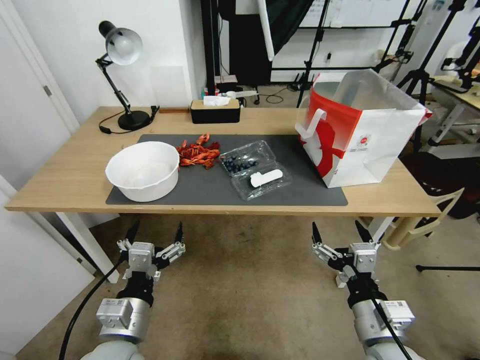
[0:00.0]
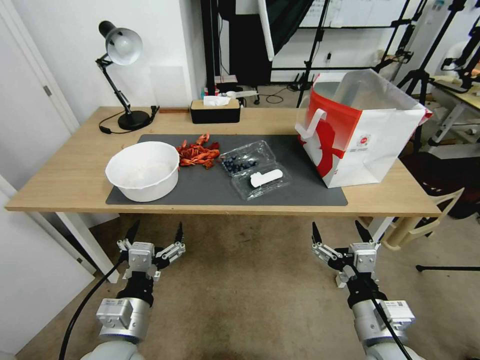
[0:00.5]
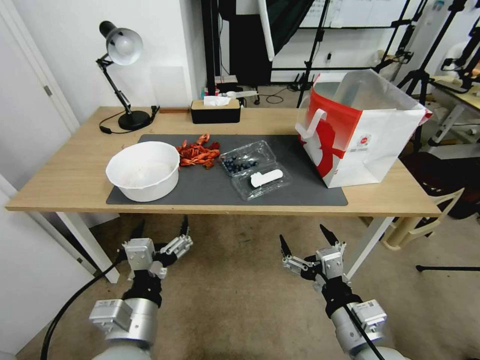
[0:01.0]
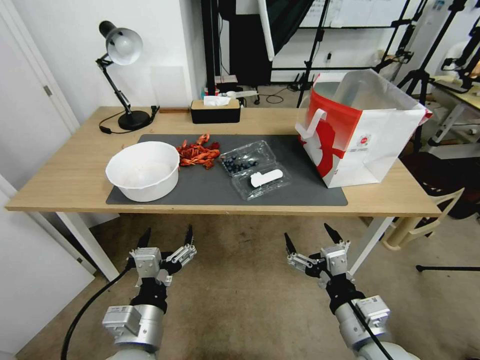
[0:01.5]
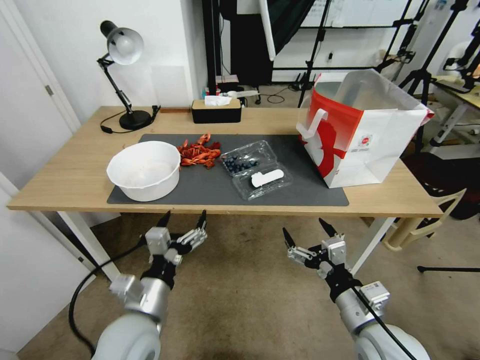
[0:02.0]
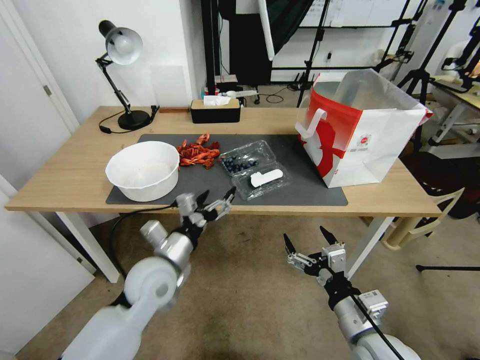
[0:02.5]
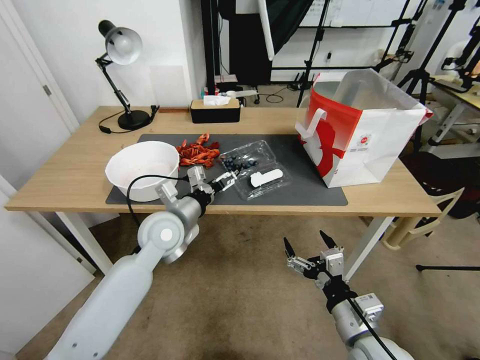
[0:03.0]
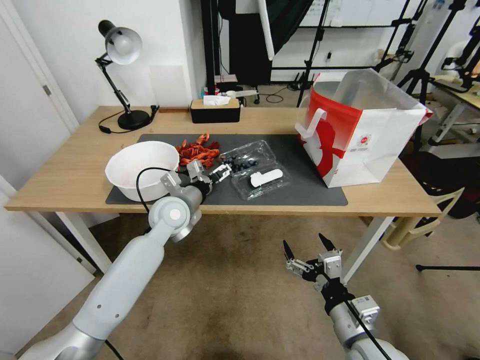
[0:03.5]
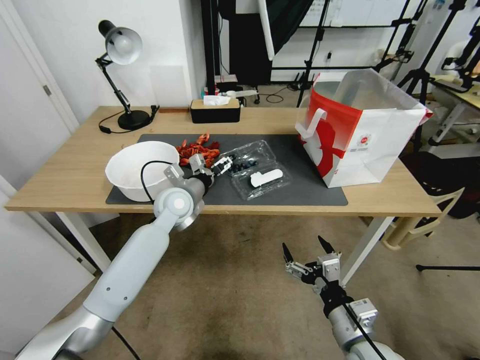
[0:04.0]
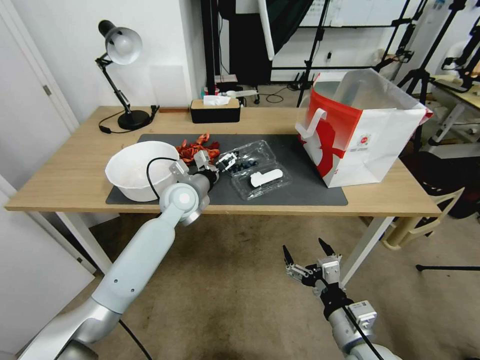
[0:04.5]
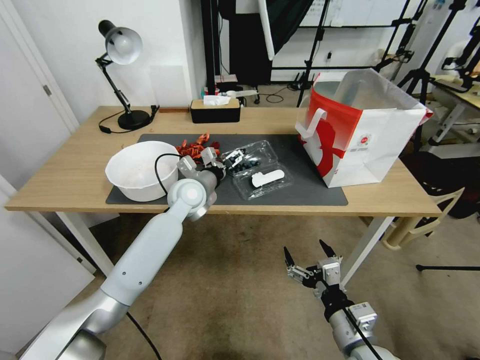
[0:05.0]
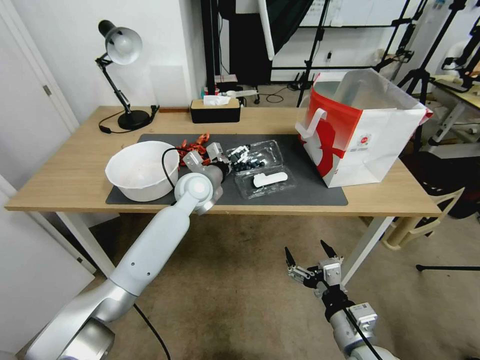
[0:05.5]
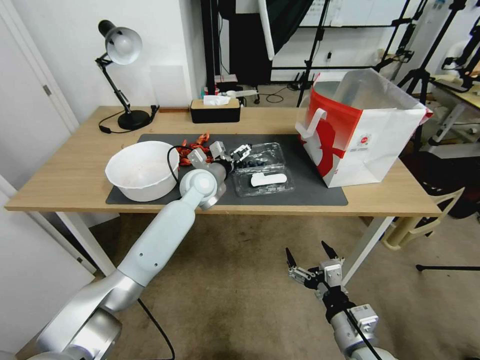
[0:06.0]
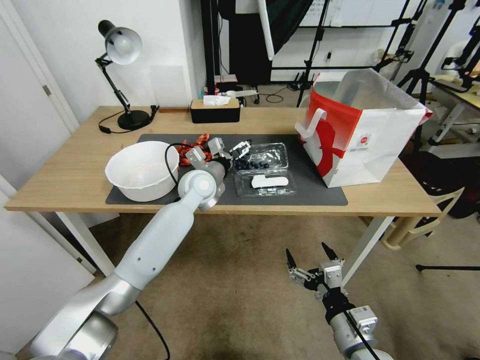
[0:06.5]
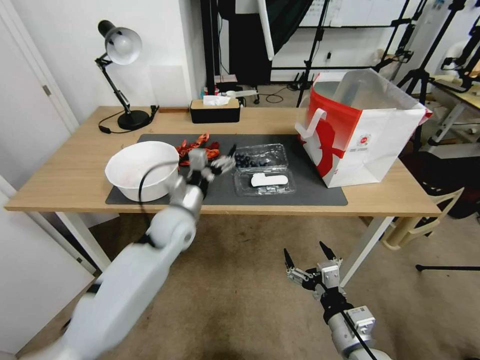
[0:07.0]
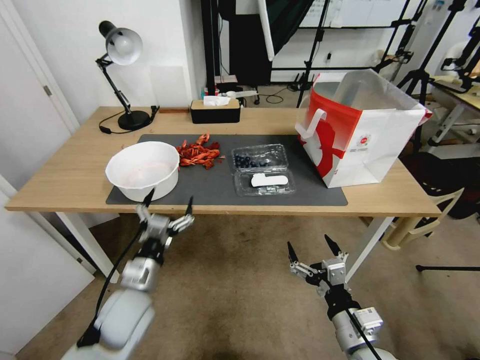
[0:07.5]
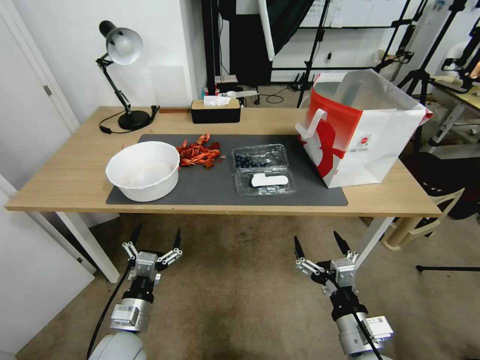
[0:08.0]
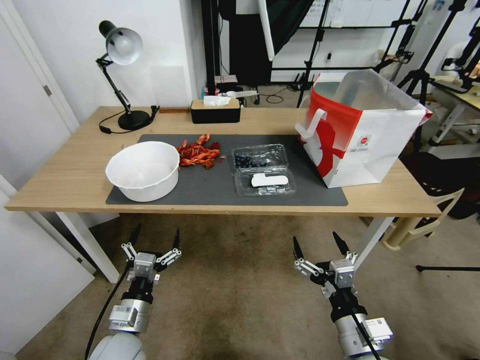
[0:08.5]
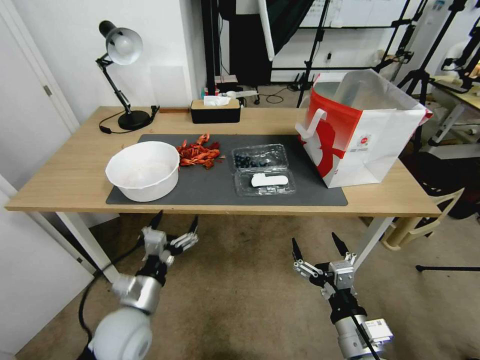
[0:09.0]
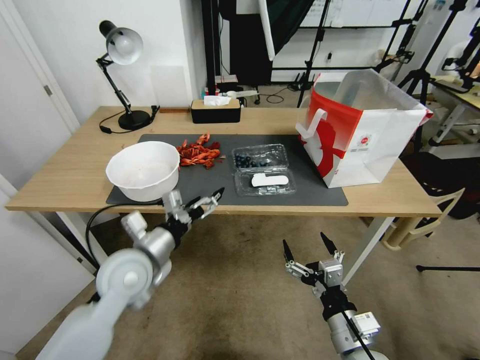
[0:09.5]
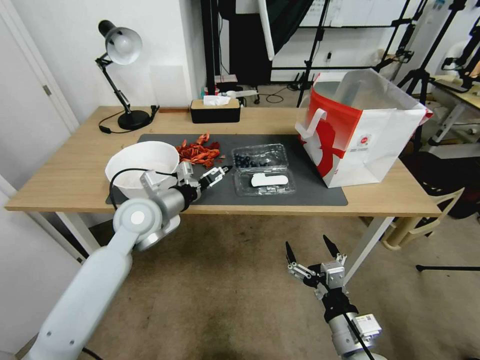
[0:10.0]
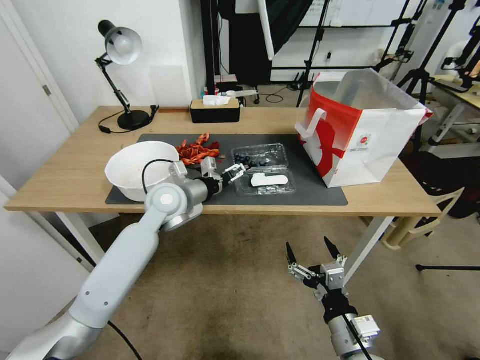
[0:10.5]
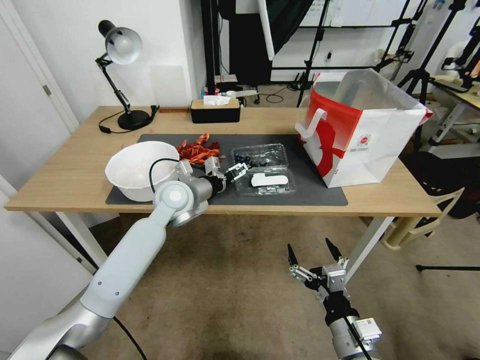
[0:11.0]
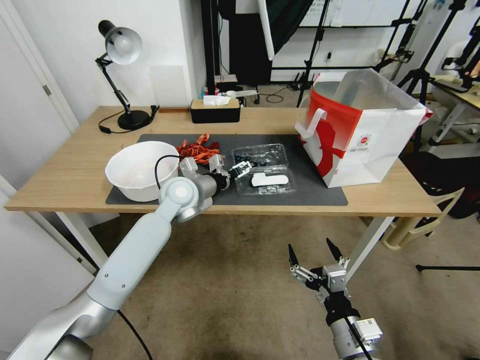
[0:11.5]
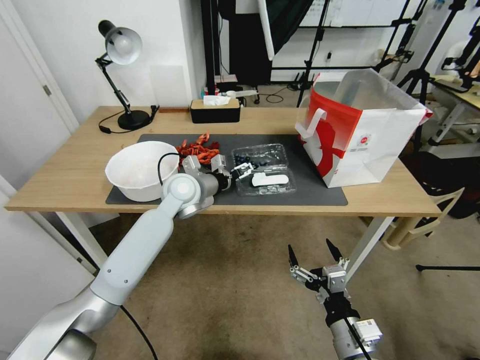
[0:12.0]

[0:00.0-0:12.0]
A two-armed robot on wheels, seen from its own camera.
Task of the whole recording: Close the takeout container lid, then place the container into the takeout bag.
0:02.0 to 0:04.0: The left gripper heads forward, covering roughly 25 cm.
0:04.0 to 0:06.0: The left gripper shifts approximately 10 cm to the right and forward.
0:06.0 to 0:08.0: The left gripper is displaced backward and downward by roughly 35 cm.
0:08.0 to 0:10.0: The left gripper is displaced forward and upward by roughly 25 cm.
0:10.0 to 0:12.0: The left gripper travels forward and to the right by roughly 10 cm.

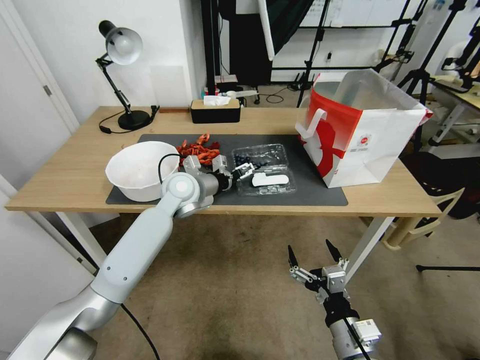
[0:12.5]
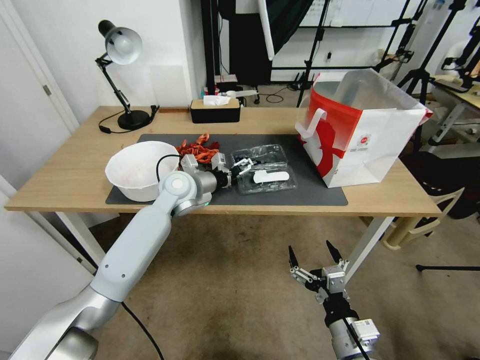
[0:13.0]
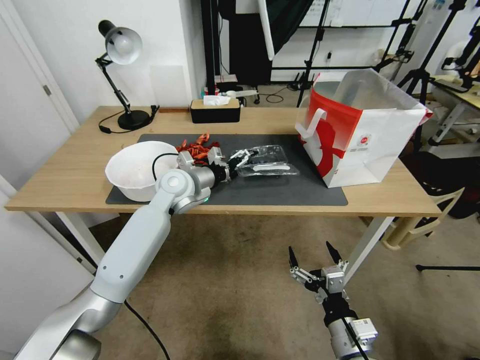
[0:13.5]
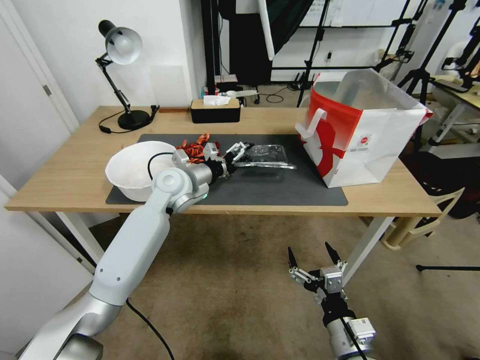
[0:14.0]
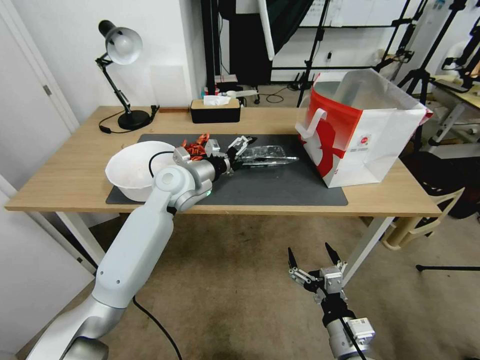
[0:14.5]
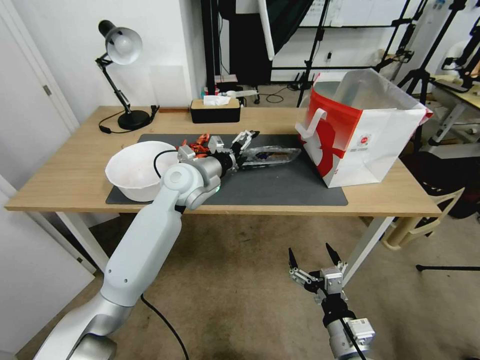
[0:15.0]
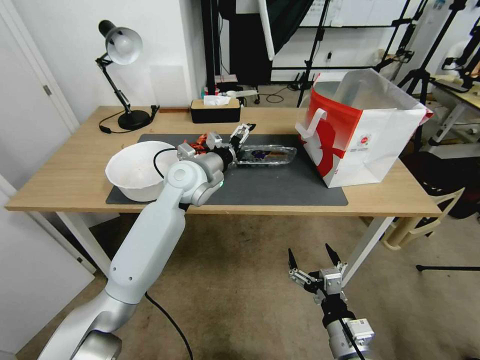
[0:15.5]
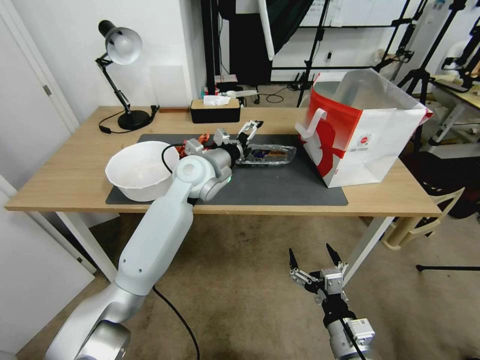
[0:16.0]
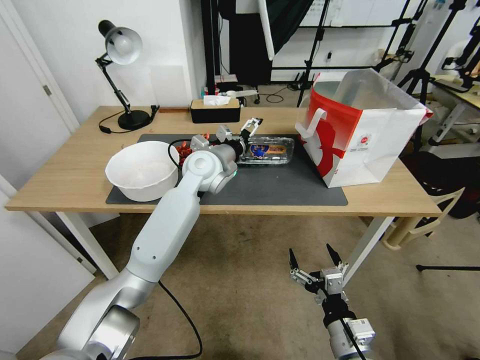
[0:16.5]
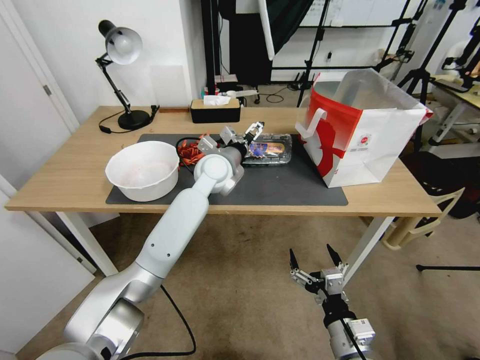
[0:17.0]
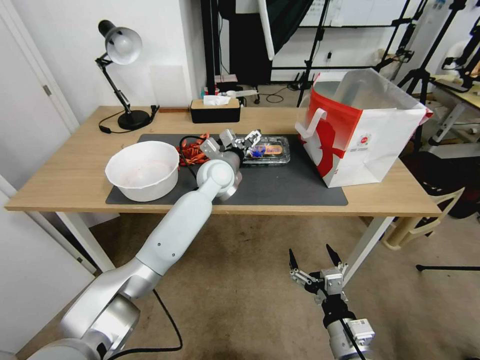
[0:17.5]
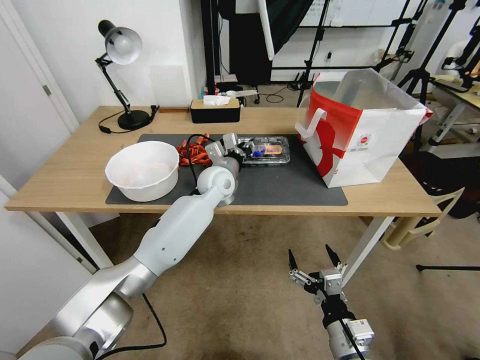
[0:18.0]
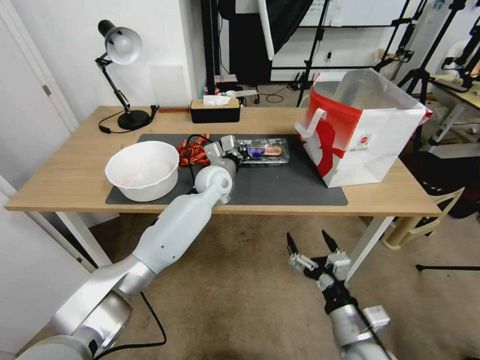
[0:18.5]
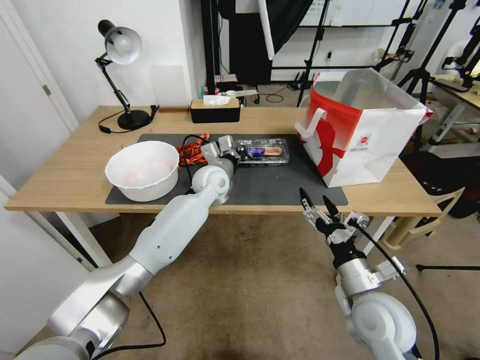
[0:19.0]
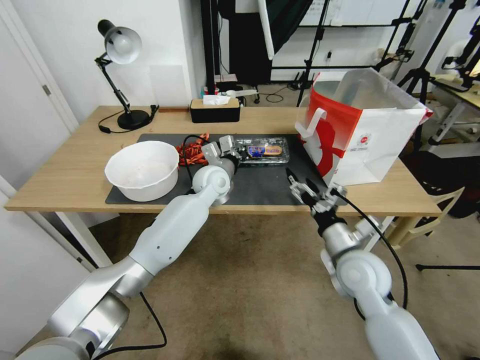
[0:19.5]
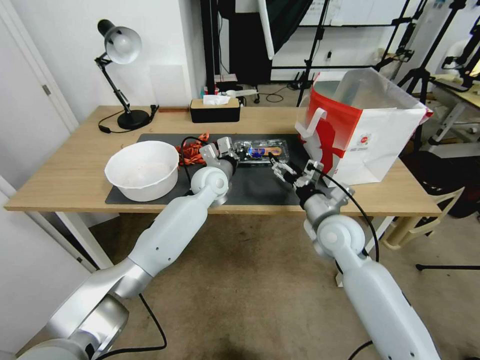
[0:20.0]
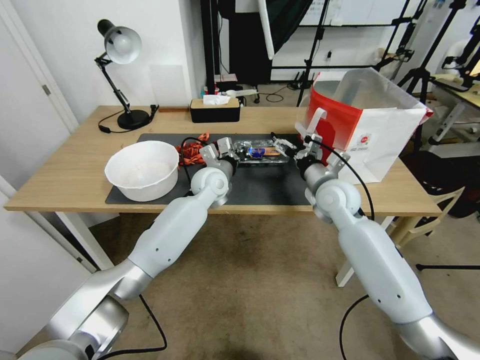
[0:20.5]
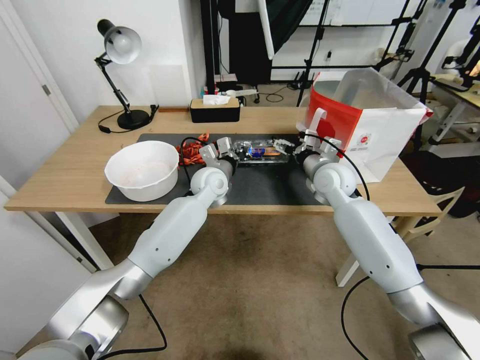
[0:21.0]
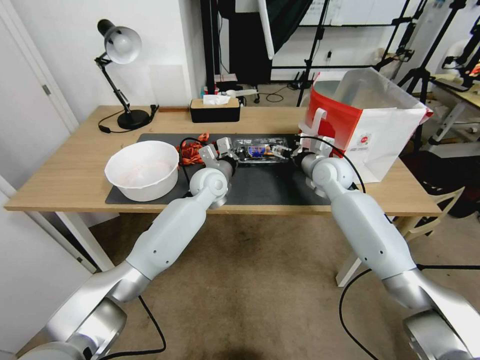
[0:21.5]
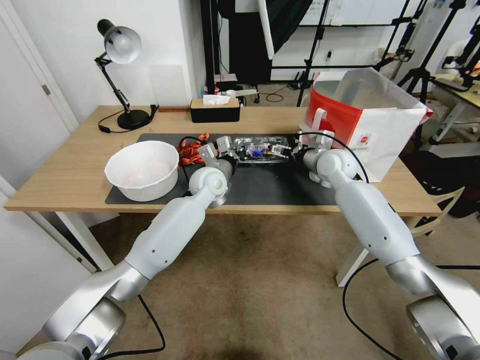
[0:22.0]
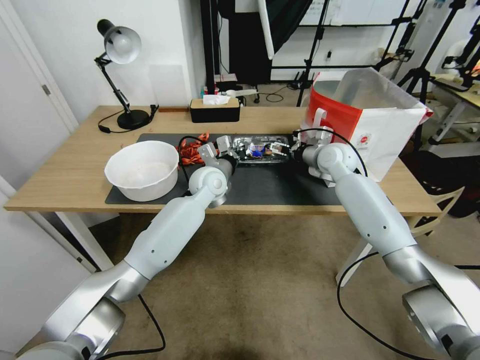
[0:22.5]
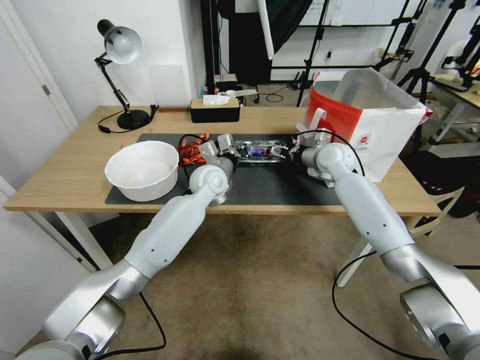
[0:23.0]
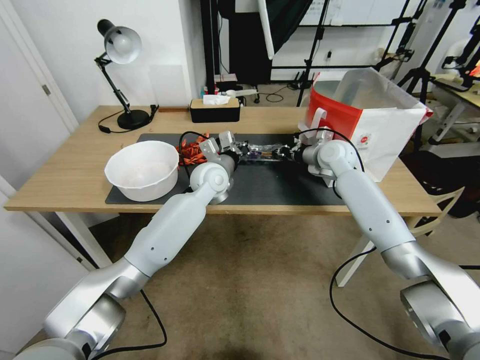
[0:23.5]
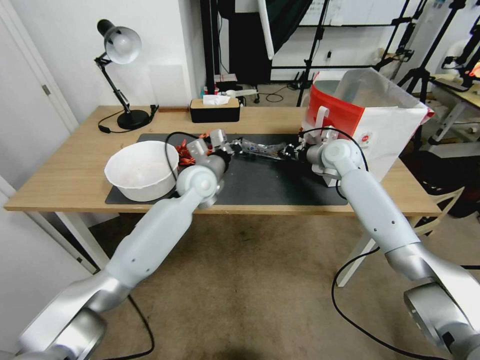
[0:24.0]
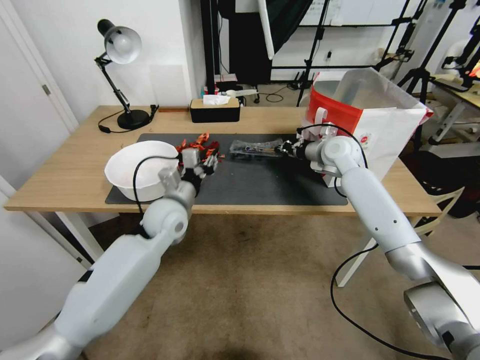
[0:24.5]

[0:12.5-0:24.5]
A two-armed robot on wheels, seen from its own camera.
Task of the whole recording: Close the takeout container lid, then place the container into the takeout bag.
0:14.5 to 0:16.5: The left gripper moves to the right, about 5 cm.
0:16.5 to 0:18.5: The left gripper moves downward, some 5 cm, and closes up.
0:18.5 to 0:20.5: The right gripper goes roughly 30 cm forward.
0:20.5 to 0:22.5: The right gripper is displaced forward by some 10 cm.
0:22.5 to 0:24.5: The left gripper is displaced backward and to the left by approximately 15 cm, and opens up, while the right gripper closes up.

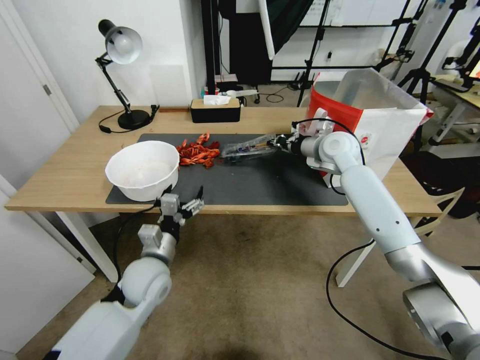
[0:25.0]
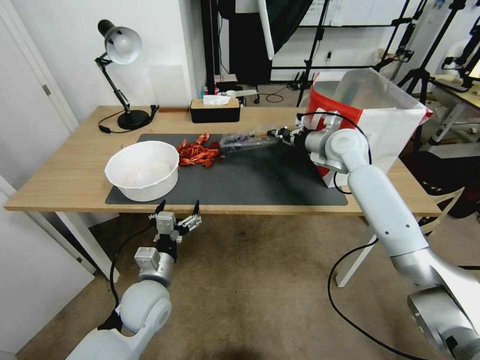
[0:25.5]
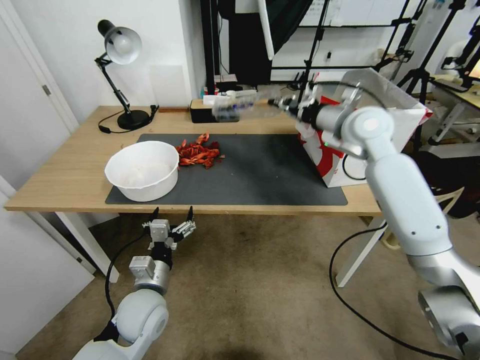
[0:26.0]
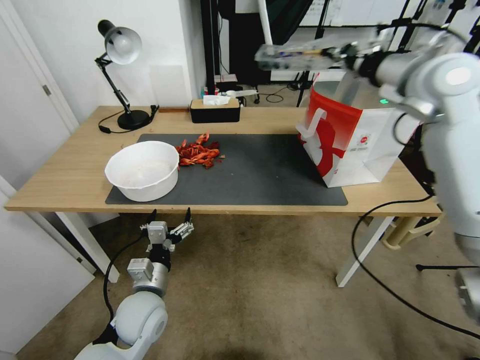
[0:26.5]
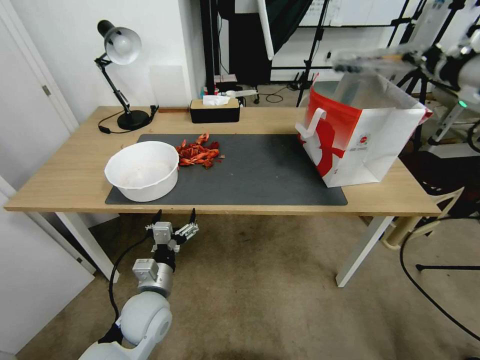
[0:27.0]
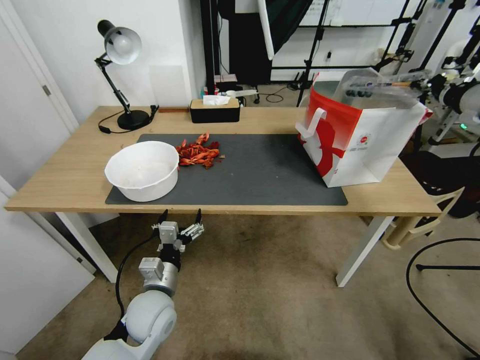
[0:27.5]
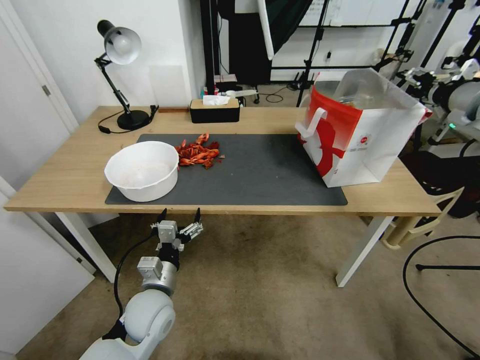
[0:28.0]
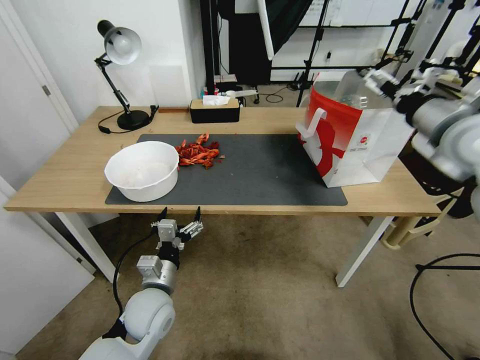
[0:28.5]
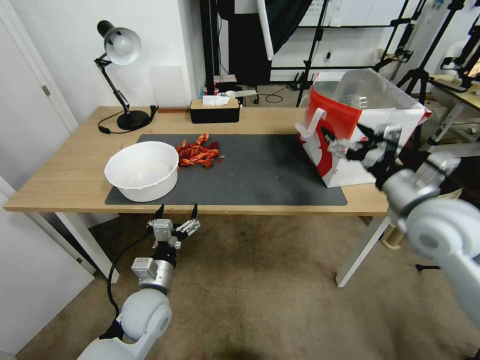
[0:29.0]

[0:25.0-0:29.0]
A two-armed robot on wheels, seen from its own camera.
Task of the whole recording: Close the takeout container lid, then place the container into the takeout bag.
0:25.0 to 0:27.0: The left gripper is displaced backward by roughly 5 cm. The right gripper moves upward, to the right and backward, some 30 cm.
0:27.0 to 0:29.0: The right gripper travels downward, backward and to the left by some 25 cm, and opens.
